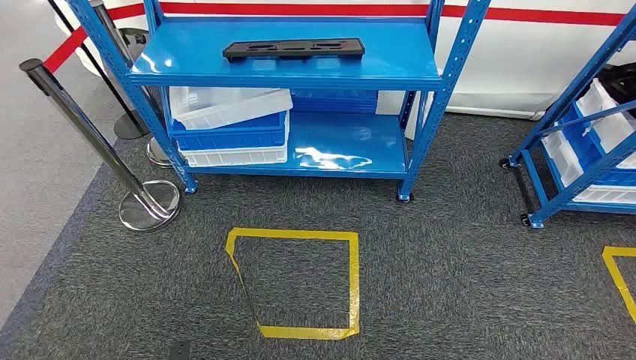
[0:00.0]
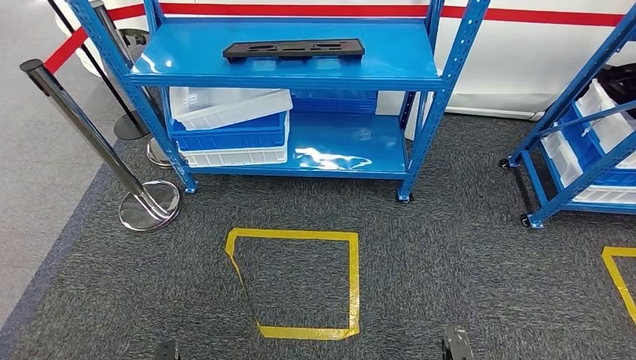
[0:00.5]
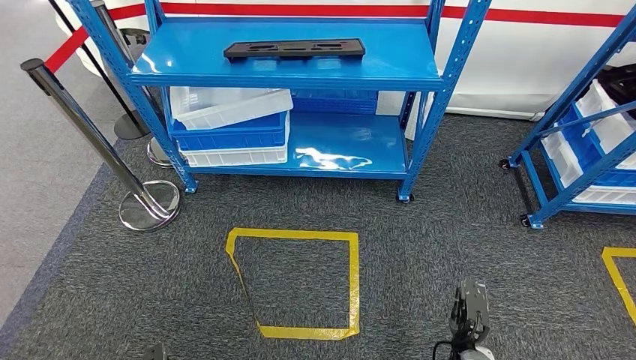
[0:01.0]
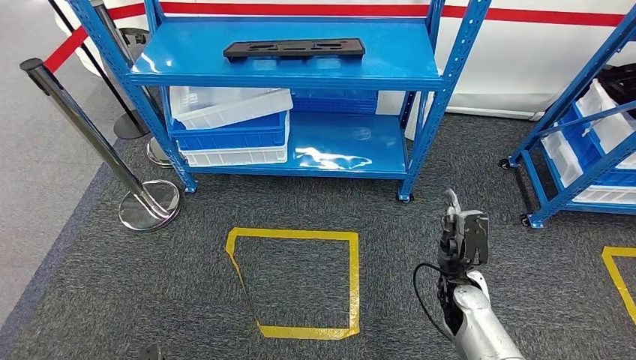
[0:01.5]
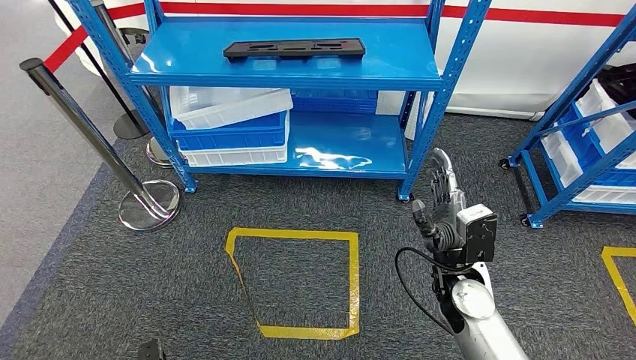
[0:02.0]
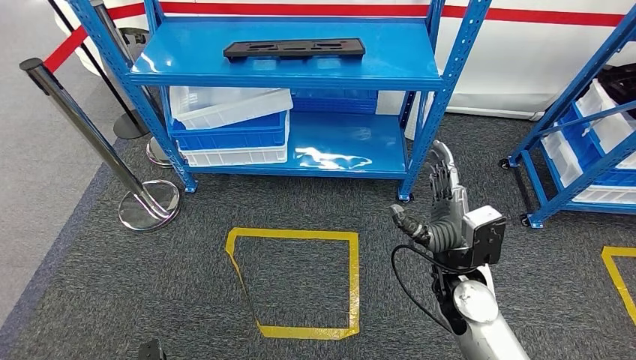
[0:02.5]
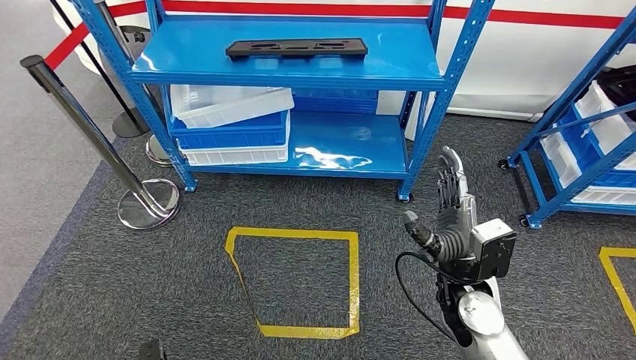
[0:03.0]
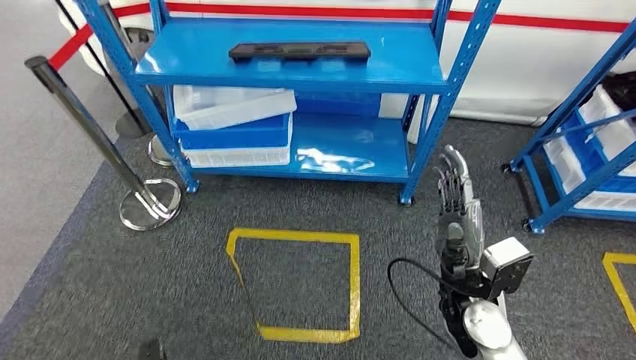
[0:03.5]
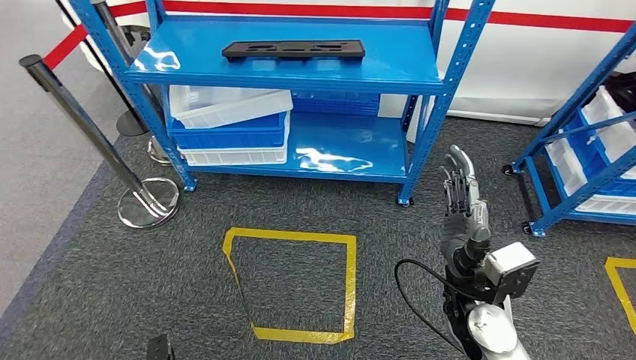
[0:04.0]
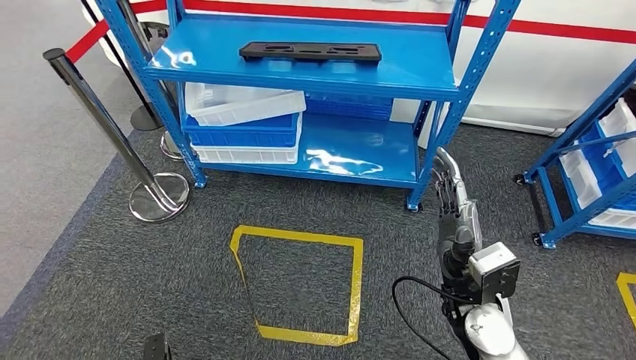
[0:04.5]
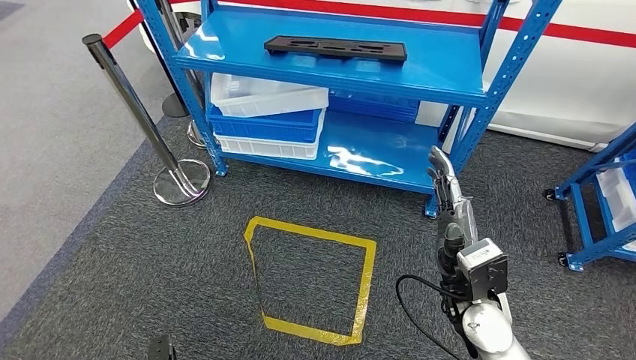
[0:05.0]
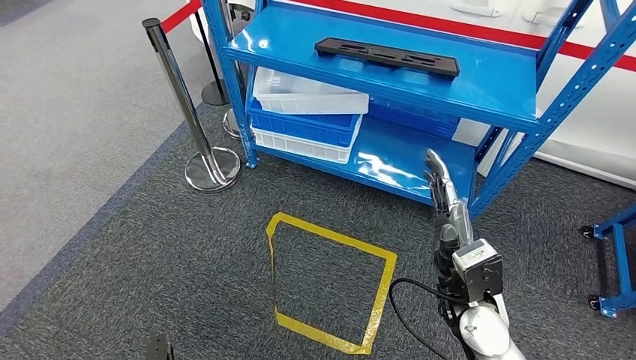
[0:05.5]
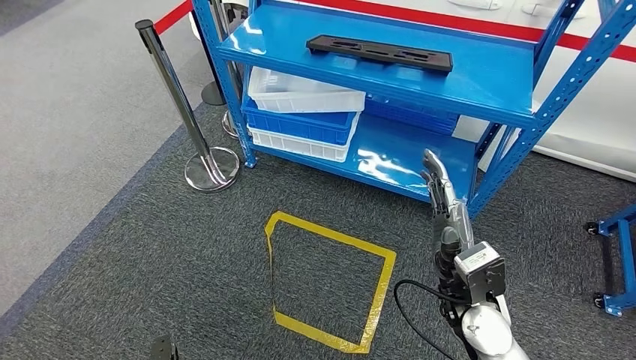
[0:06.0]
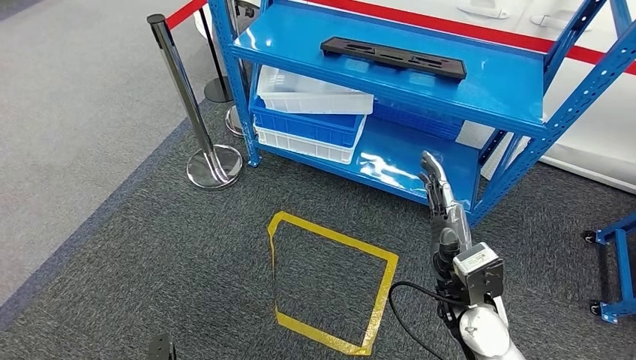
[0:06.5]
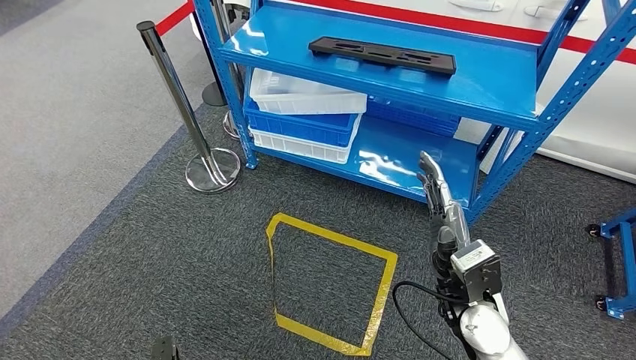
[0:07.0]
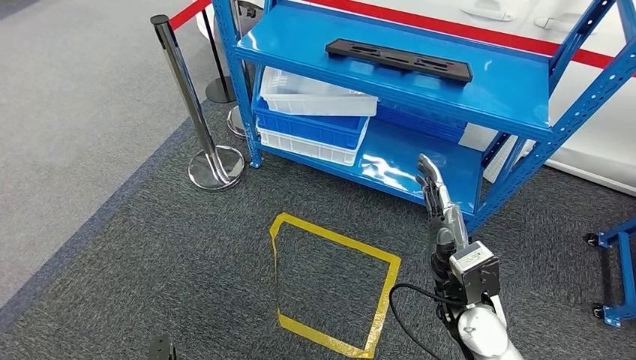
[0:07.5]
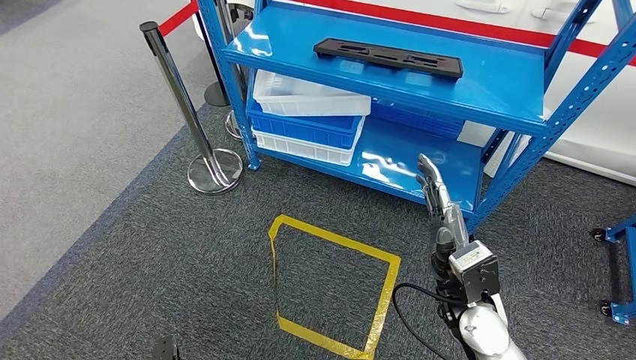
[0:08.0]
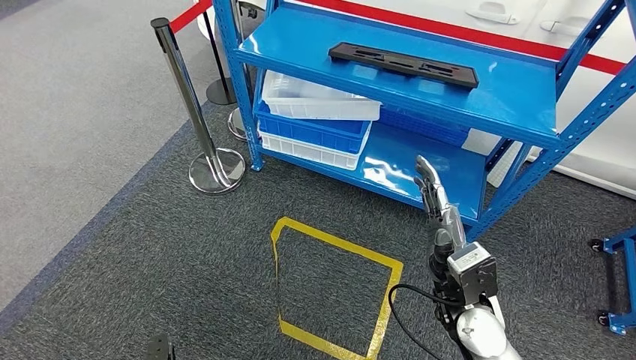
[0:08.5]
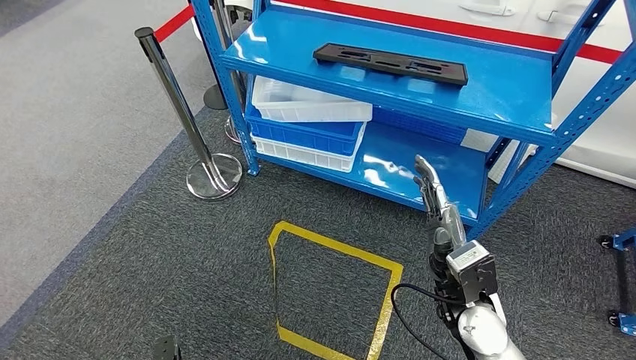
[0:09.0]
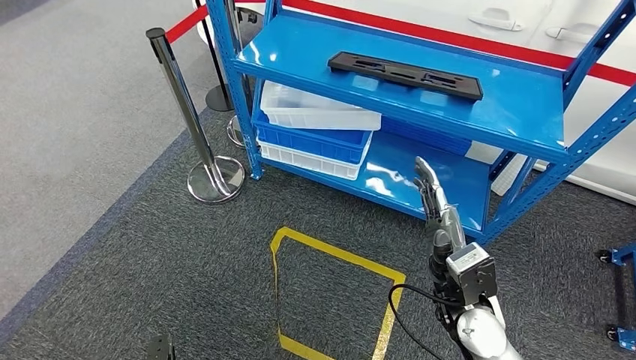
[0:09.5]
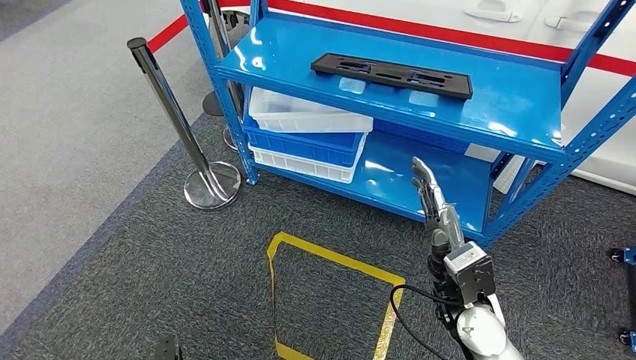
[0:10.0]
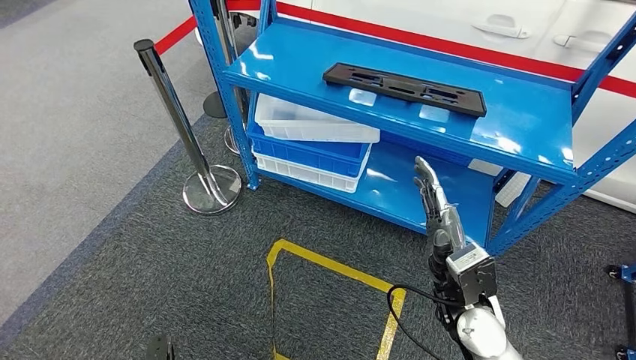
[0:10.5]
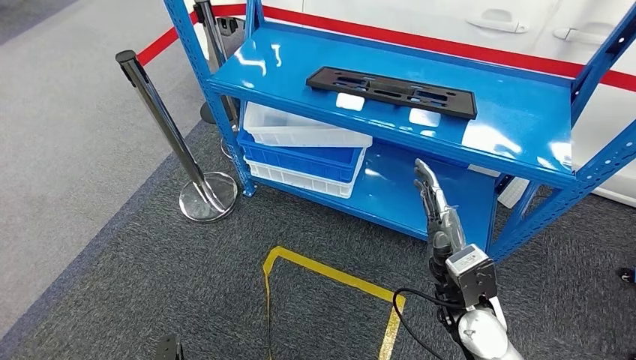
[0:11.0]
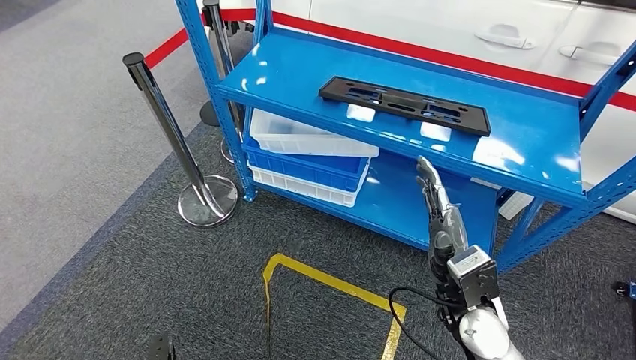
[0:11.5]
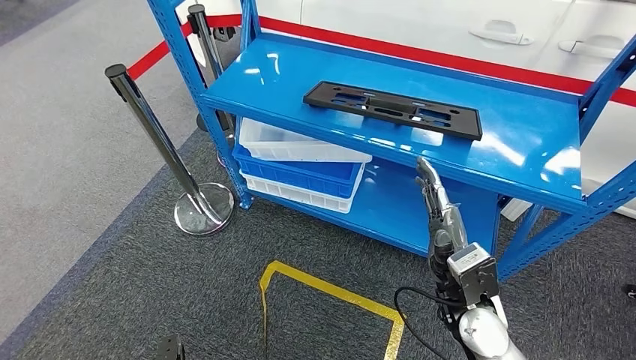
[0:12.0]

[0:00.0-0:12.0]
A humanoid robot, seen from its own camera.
0:06.0 to 0:08.0: Neither hand changes place.

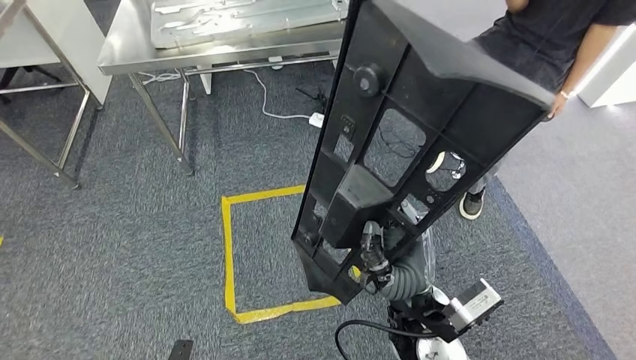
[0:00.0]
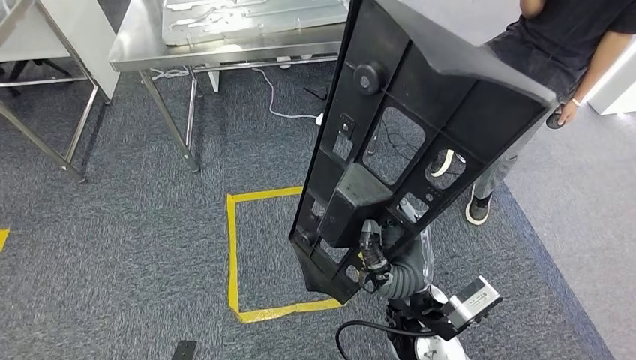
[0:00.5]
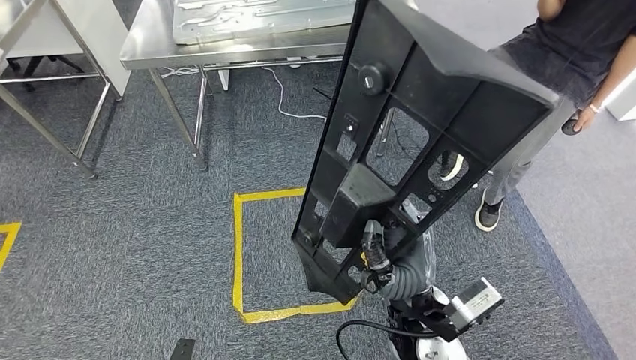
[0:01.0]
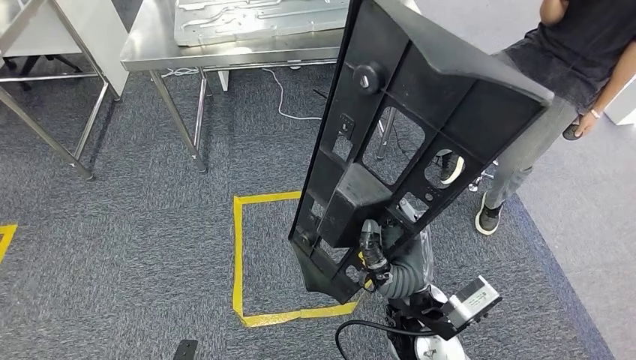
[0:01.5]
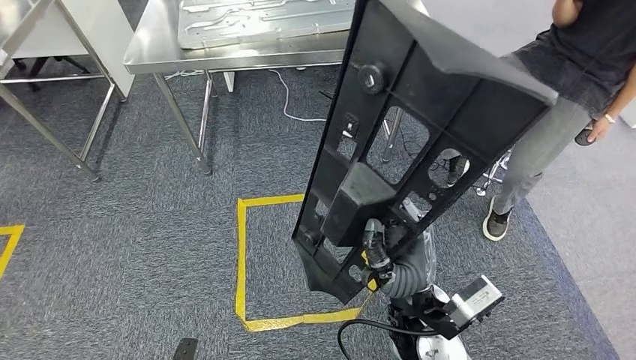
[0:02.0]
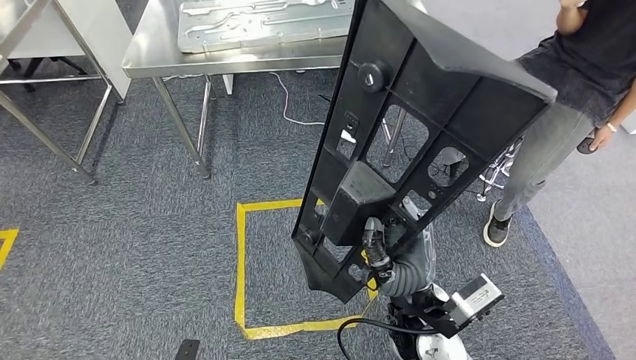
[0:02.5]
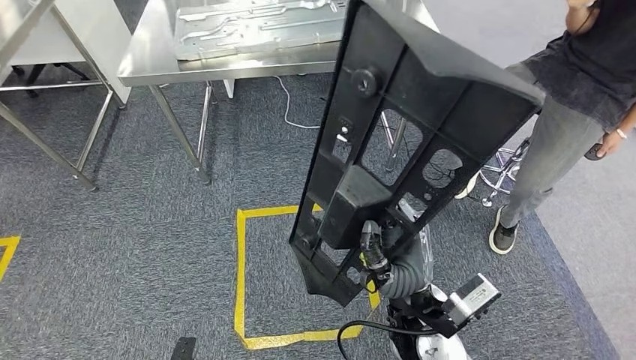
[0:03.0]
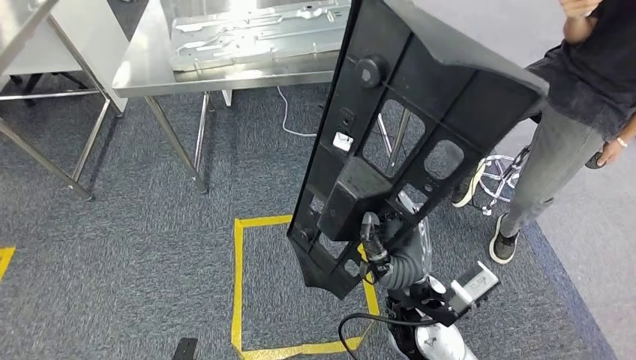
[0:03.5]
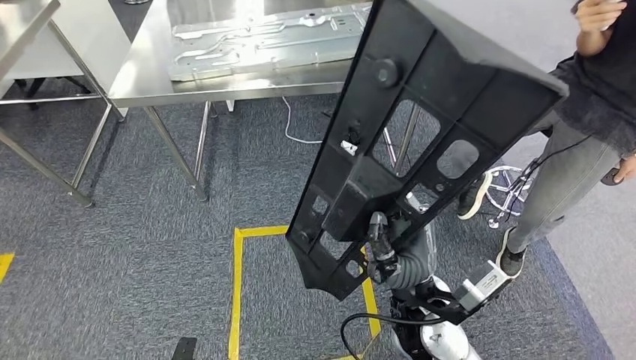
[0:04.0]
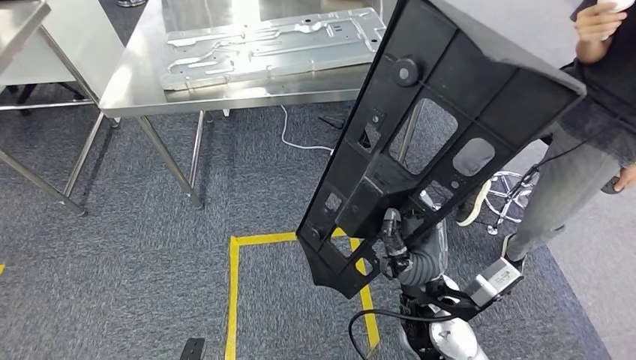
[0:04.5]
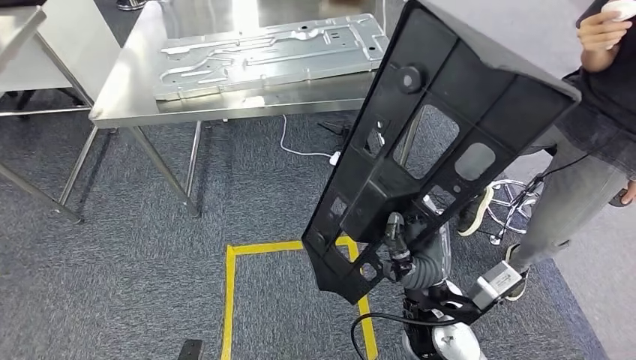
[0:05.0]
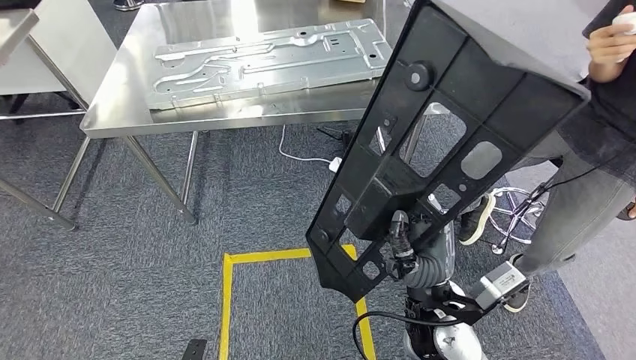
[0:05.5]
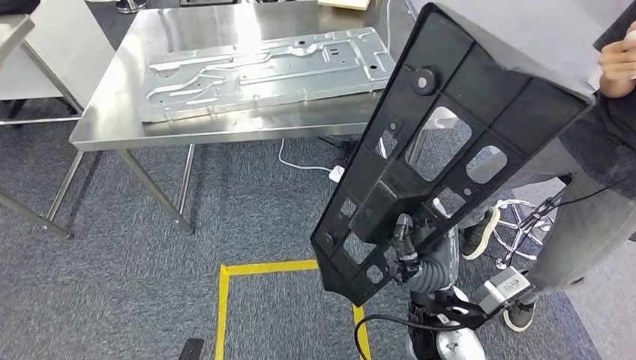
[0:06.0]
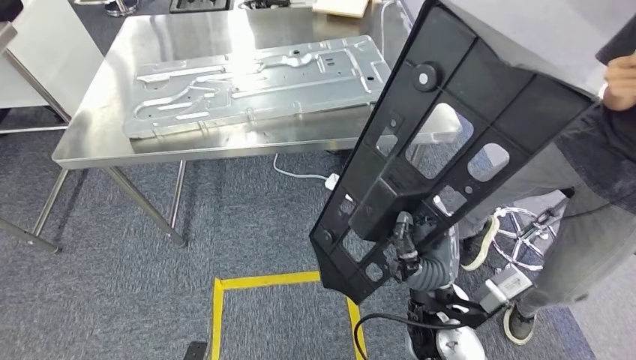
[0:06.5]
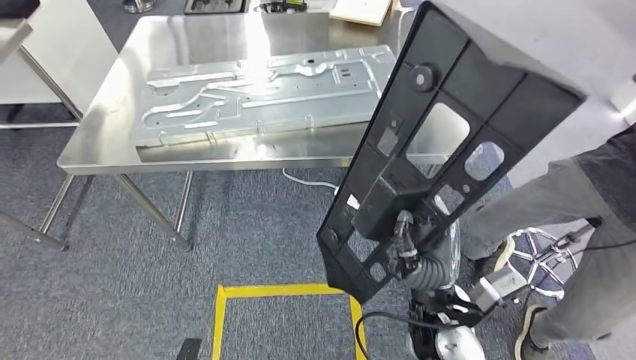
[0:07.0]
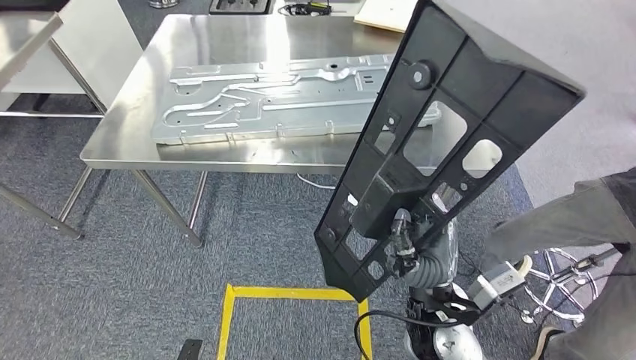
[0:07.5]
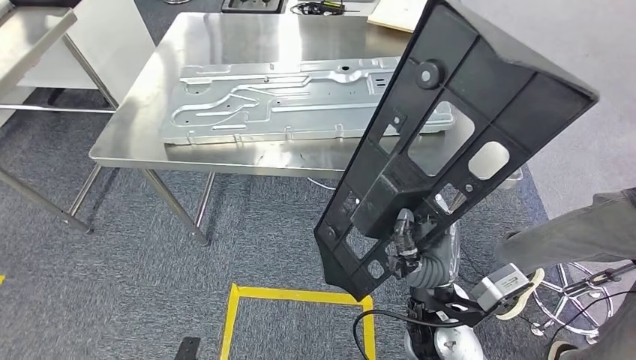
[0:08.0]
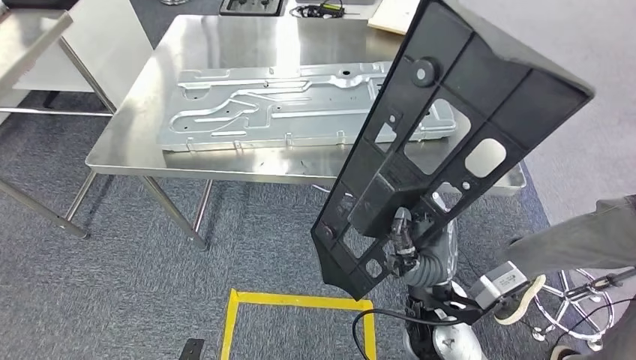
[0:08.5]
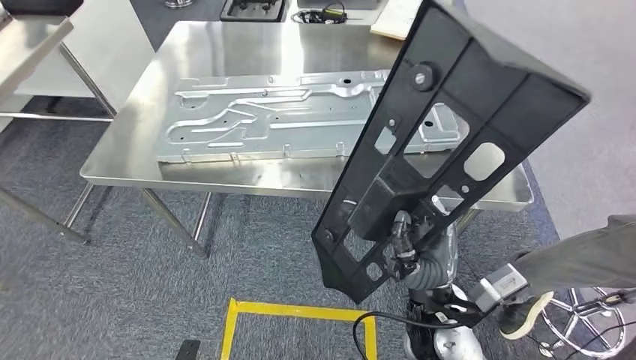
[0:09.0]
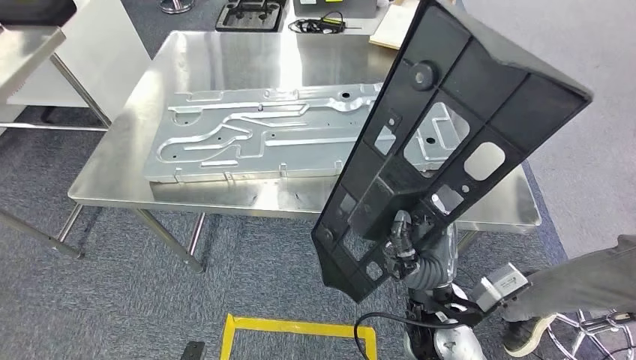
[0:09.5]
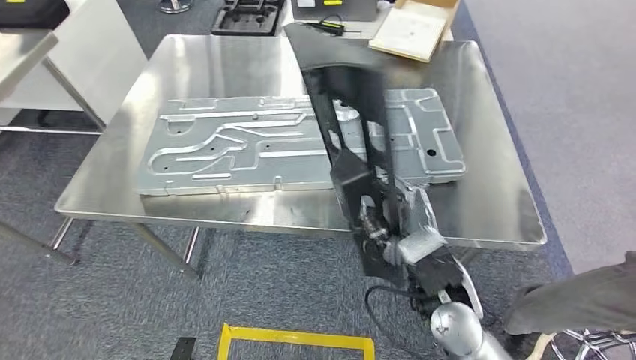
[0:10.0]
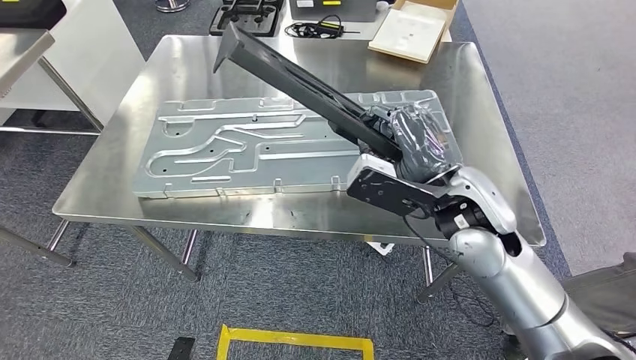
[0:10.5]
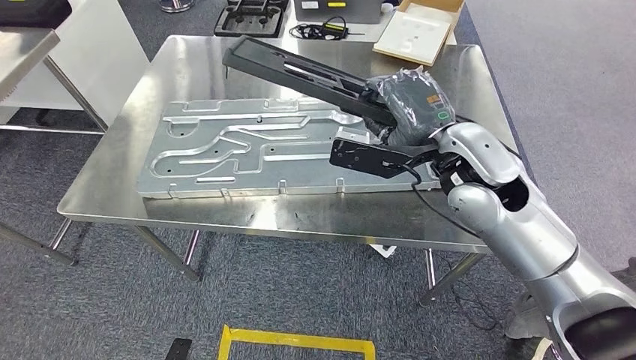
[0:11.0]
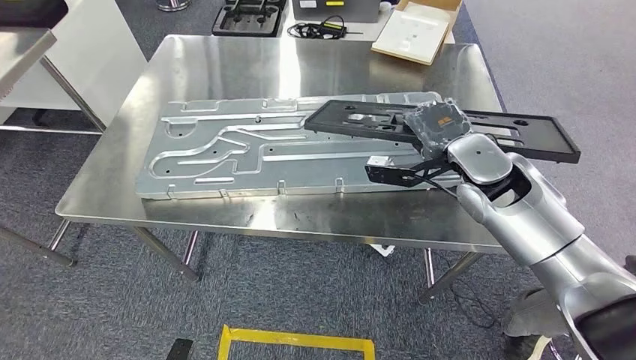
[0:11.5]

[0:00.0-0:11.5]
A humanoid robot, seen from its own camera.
Step, 0:00.0 to 0:04.0: Move the large material to the workbench.
